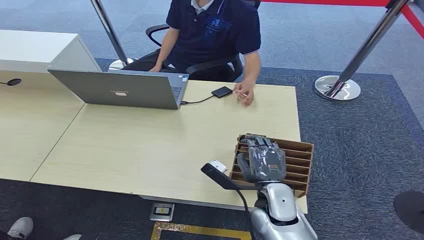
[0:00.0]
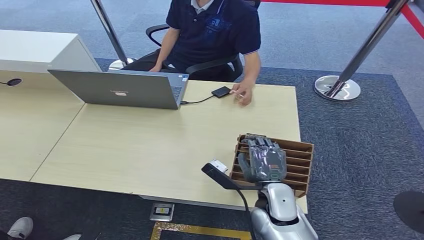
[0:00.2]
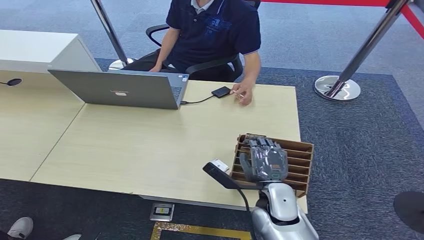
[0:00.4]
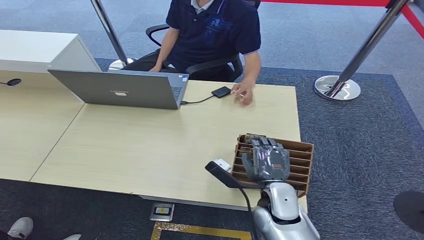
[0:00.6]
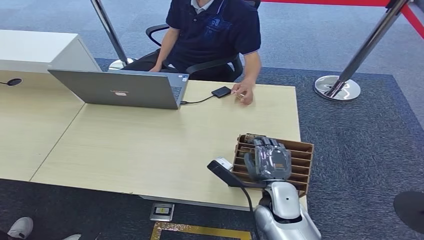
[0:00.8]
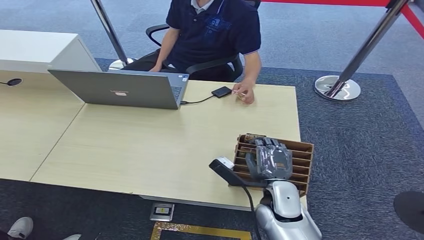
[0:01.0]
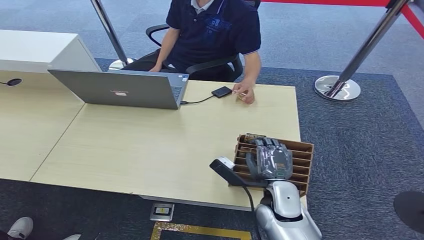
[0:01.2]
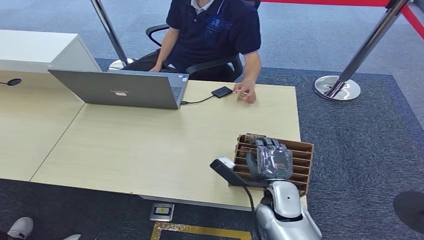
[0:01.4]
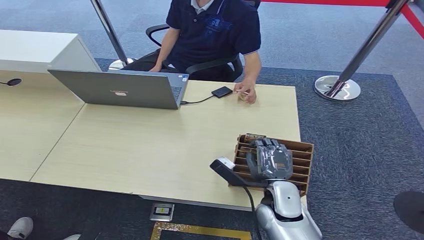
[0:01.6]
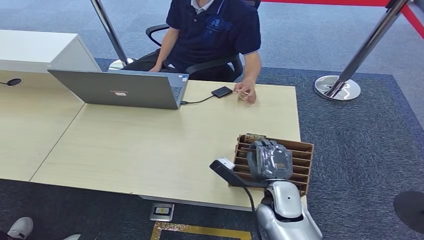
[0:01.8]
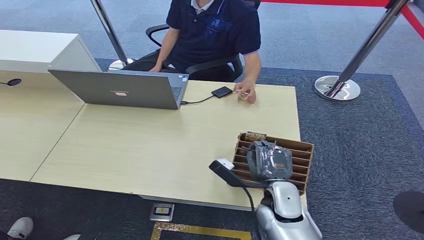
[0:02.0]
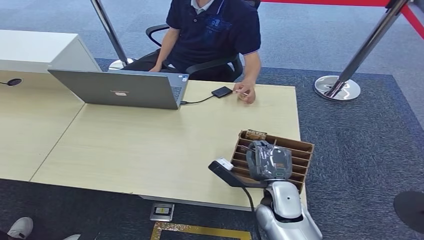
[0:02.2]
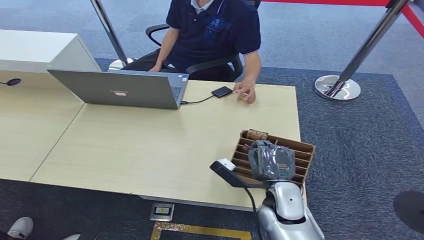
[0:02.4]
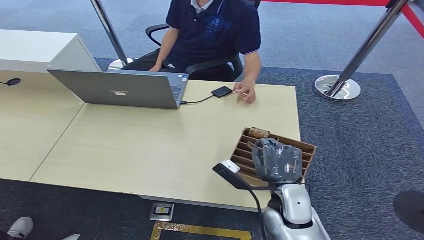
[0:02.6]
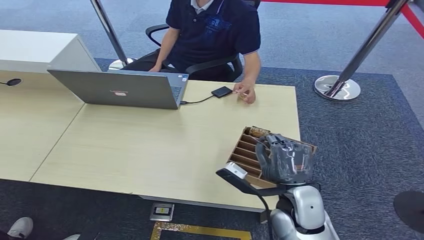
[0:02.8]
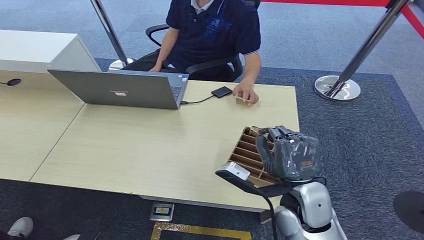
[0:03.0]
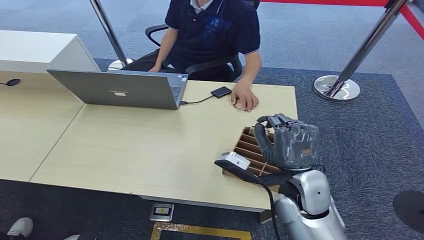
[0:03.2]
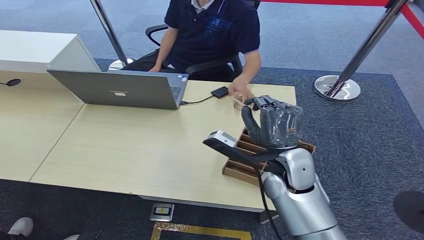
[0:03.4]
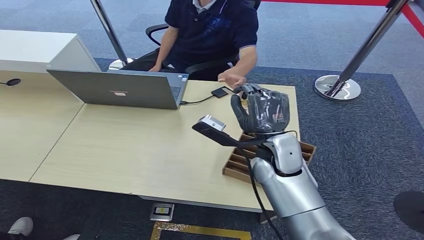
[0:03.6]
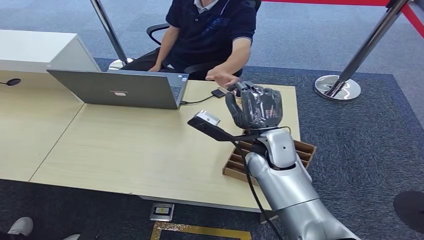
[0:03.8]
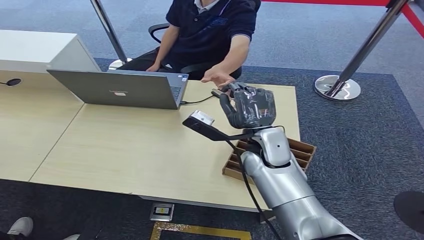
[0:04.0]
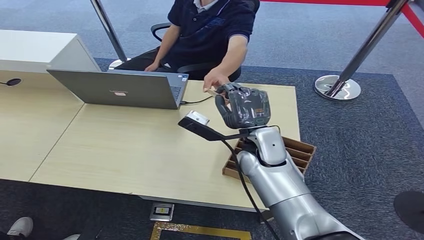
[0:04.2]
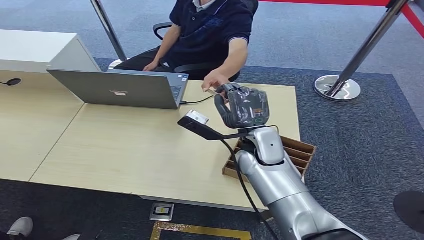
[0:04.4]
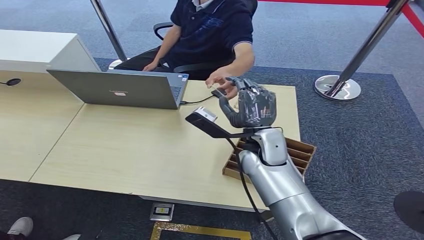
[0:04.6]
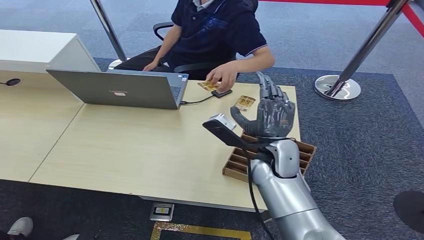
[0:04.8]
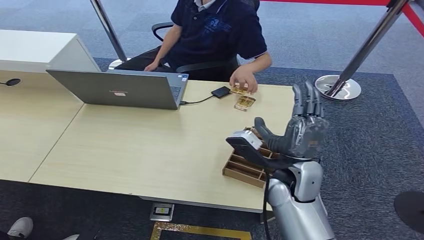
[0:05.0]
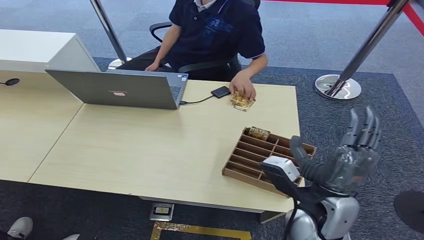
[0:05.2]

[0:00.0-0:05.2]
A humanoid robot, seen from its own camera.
Step, 0:00.0 to 0:02.6: Pick up the key card from the card box.
Step, 0:03.0 to 0:05.2: Hand the key card to the target.
0:01.8 to 0:03.4: The right hand shifts roughly 15 cm upward and forward.
0:03.4 to 0:05.2: The right hand moves backward, some 10 cm.
